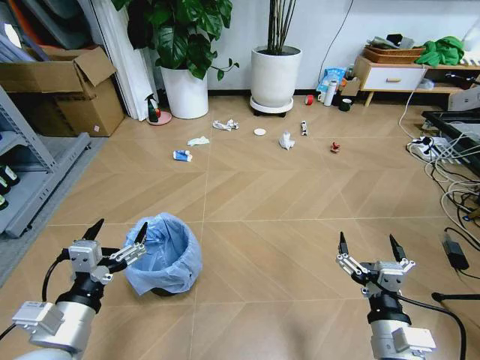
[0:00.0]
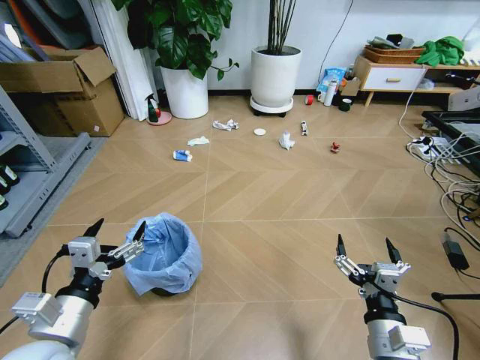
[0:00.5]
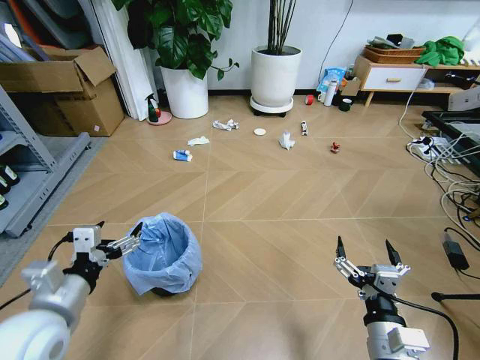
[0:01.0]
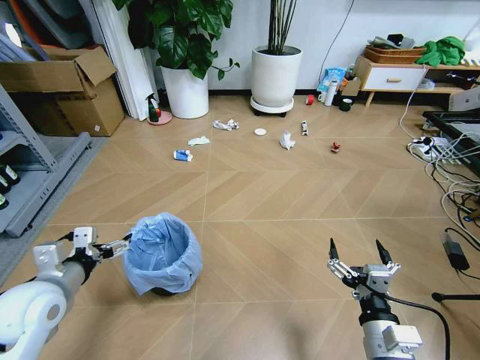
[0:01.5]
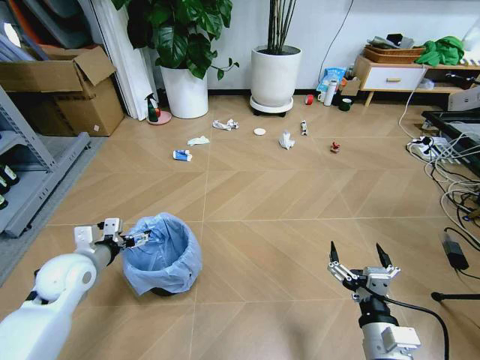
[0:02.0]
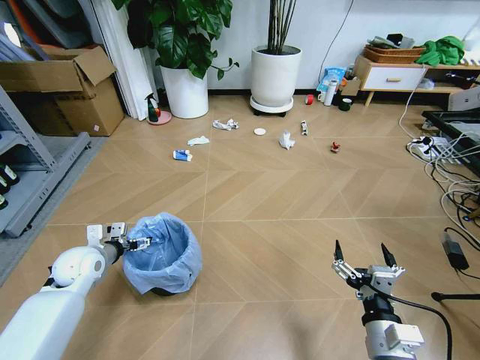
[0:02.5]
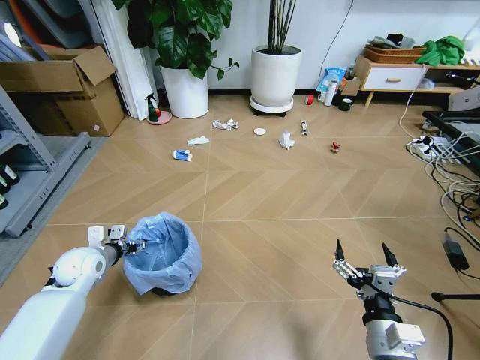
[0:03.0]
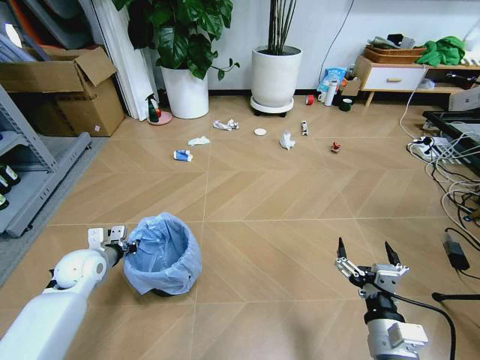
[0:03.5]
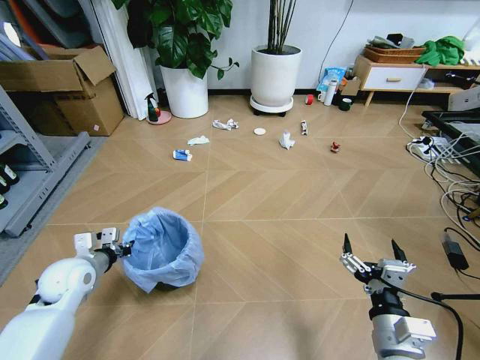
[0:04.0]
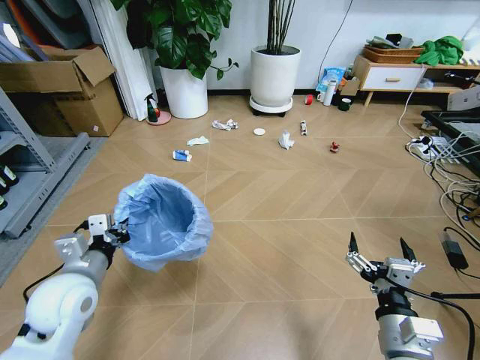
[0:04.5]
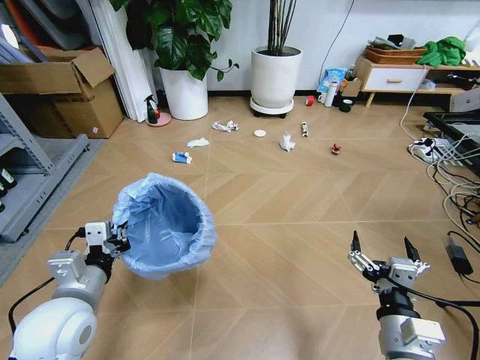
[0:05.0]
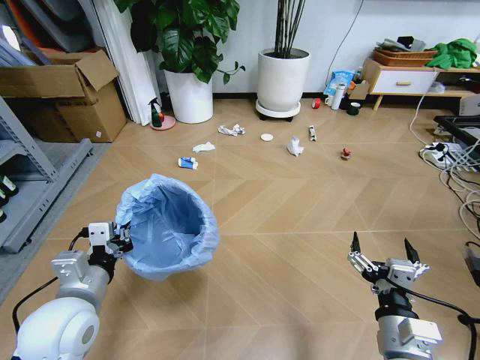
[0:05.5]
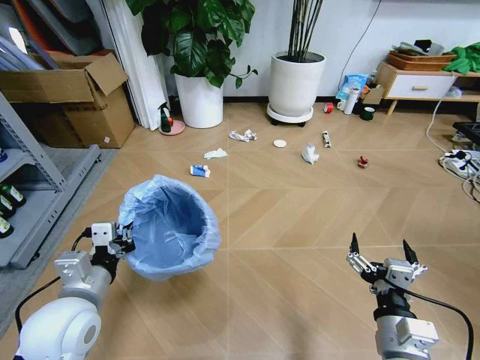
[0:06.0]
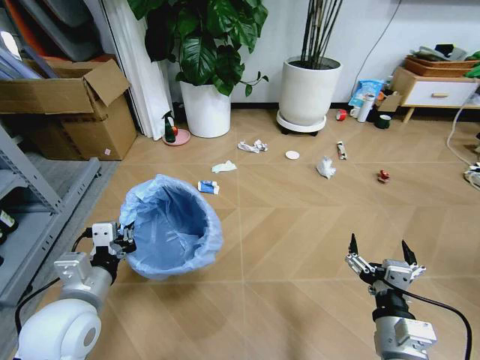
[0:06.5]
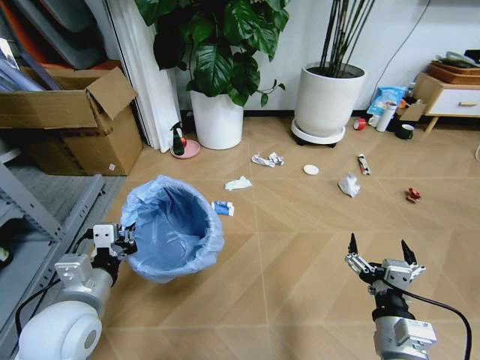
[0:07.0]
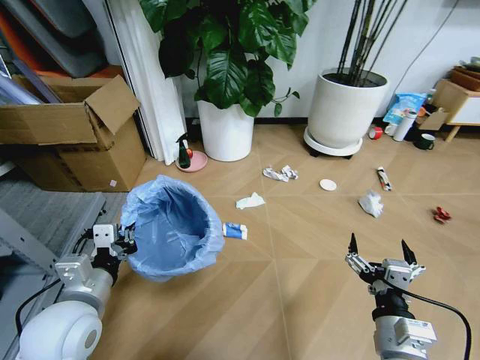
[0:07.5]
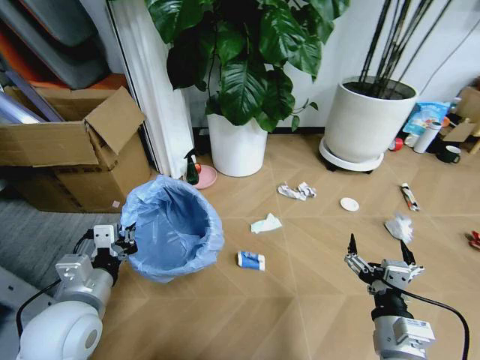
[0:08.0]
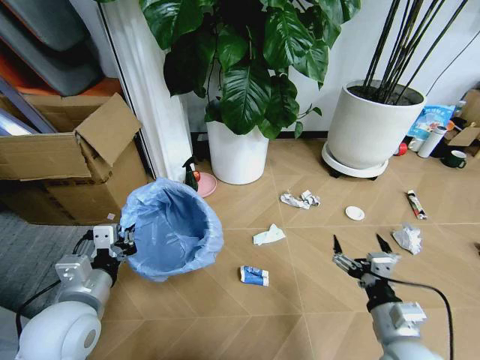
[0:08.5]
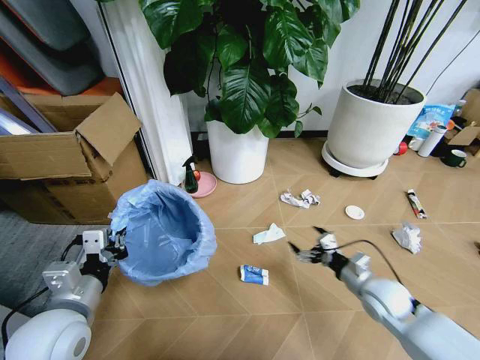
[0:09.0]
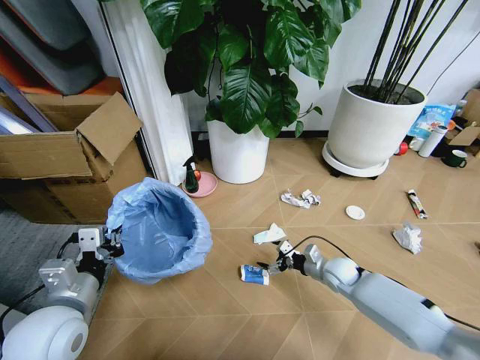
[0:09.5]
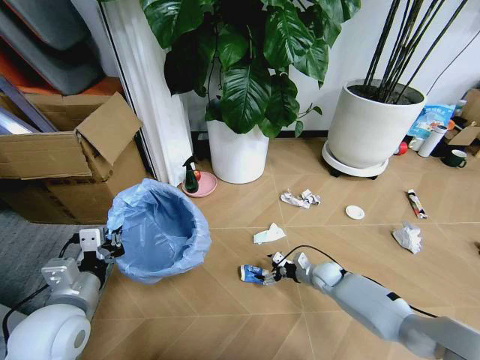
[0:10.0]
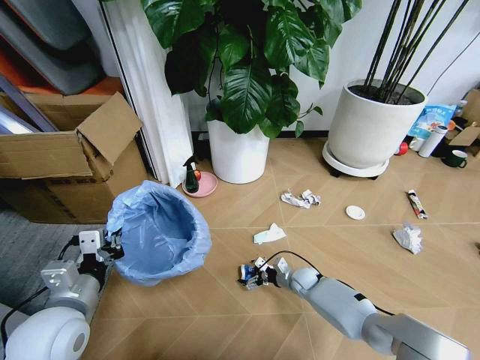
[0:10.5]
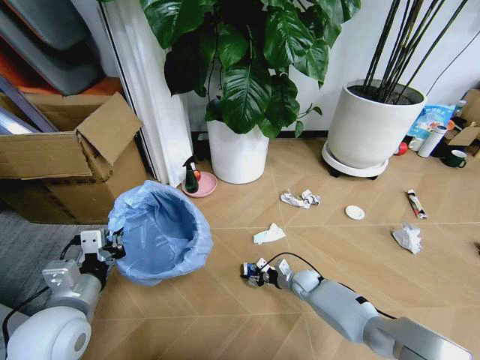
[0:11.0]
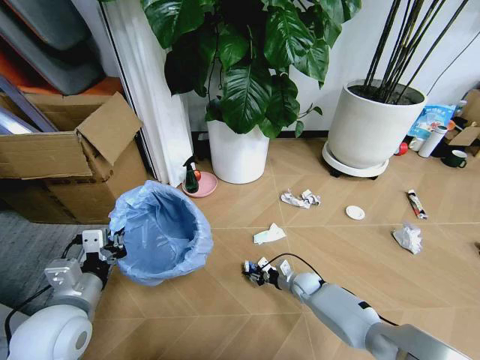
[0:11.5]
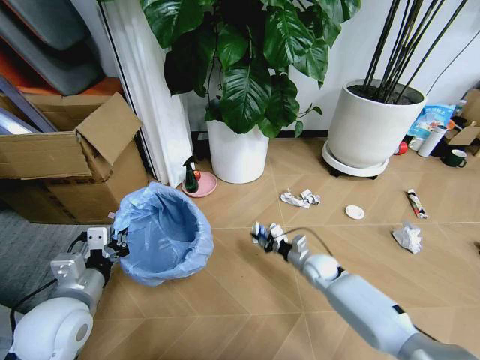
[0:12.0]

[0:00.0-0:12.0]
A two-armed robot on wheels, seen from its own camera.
Task of the whole recording: Pick up the trash bin and place the garbage on the floor into it.
0:02.0 to 0:04.0: The left gripper closes its fingers.
0:04.0 to 0:06.0: The left gripper goes some 20 cm backward, to the right and upward.
0:08.0 to 0:10.0: The right gripper travels forward and downward by approximately 35 cm.
0:10.0 to 0:12.0: The right gripper moves some 5 cm, and closes.

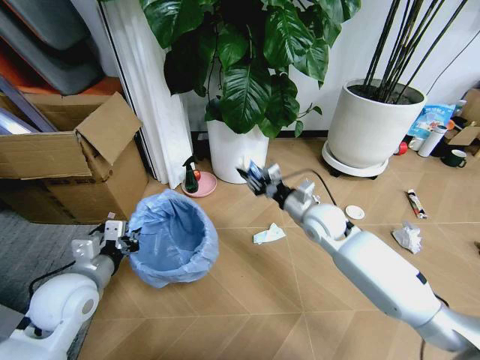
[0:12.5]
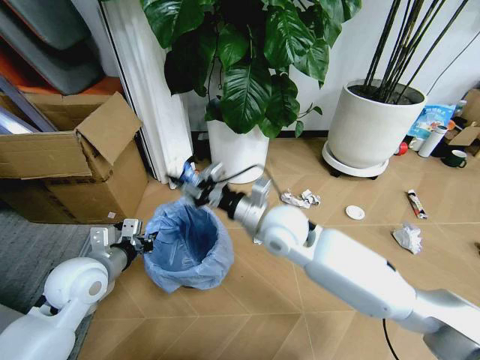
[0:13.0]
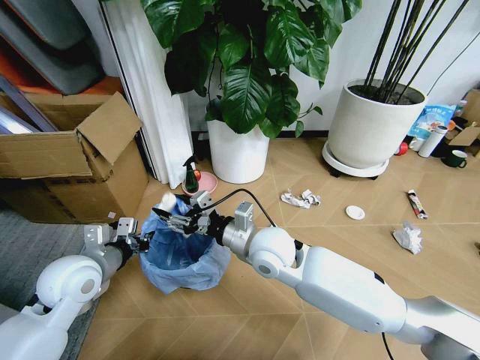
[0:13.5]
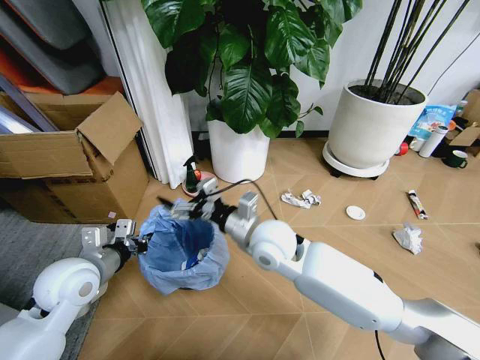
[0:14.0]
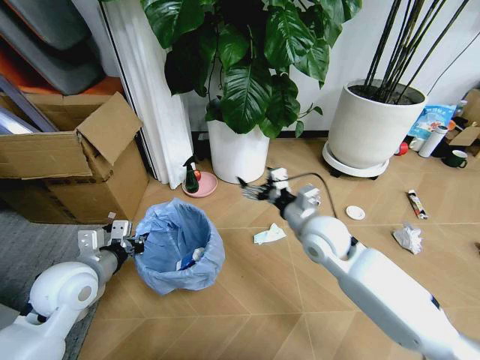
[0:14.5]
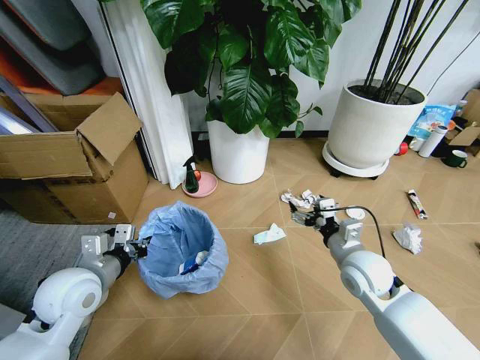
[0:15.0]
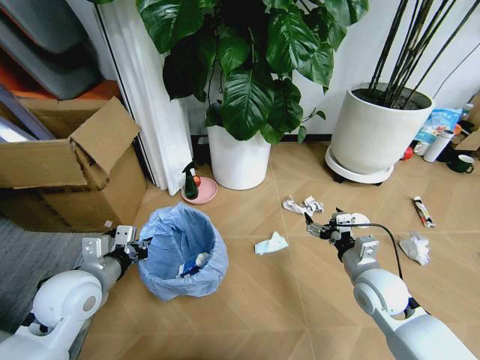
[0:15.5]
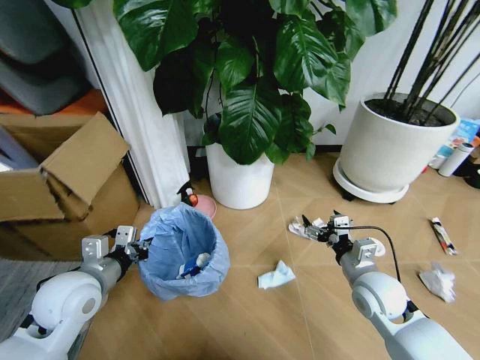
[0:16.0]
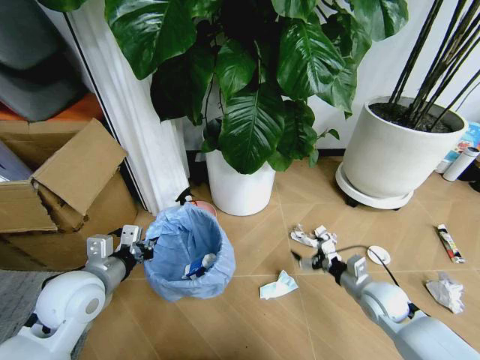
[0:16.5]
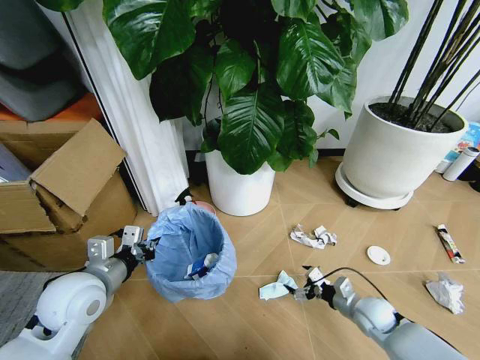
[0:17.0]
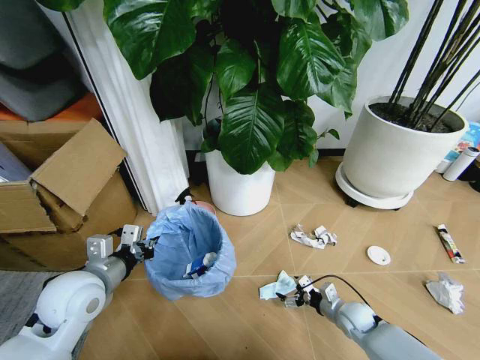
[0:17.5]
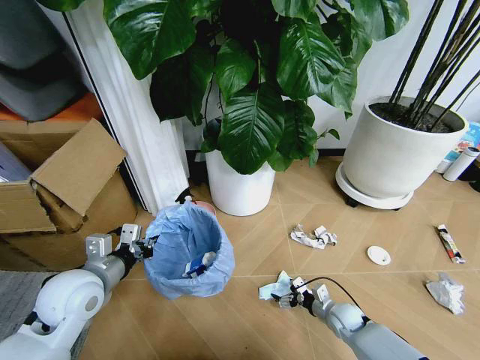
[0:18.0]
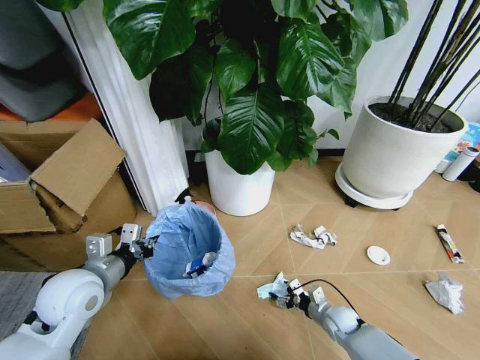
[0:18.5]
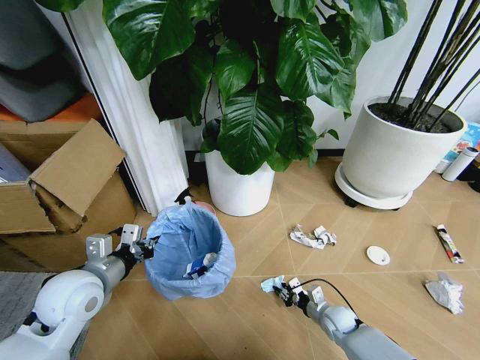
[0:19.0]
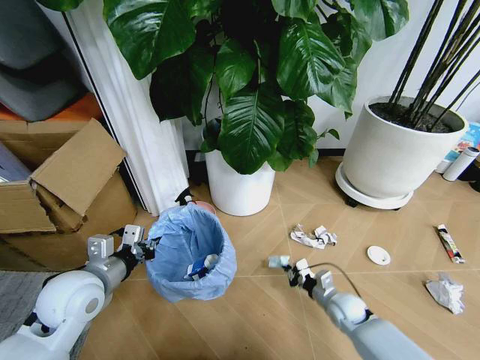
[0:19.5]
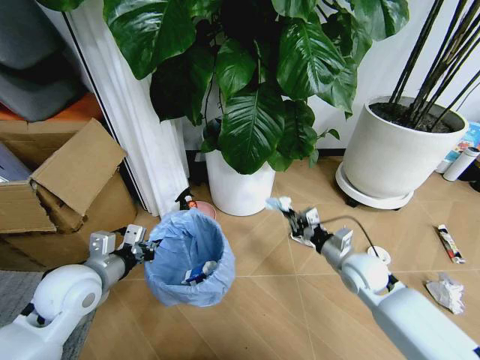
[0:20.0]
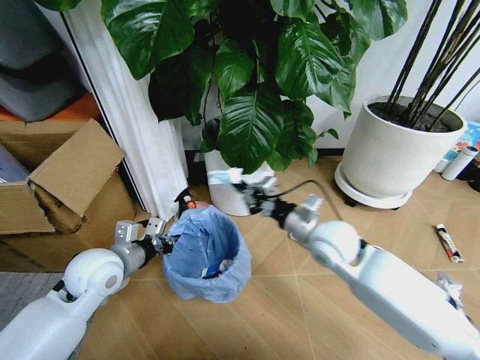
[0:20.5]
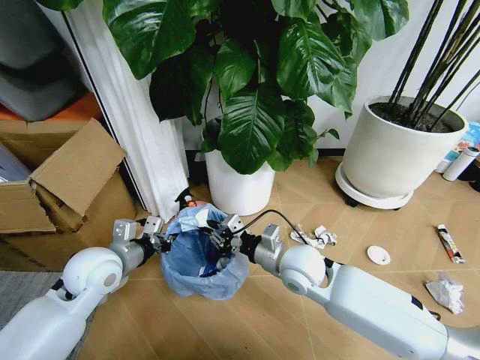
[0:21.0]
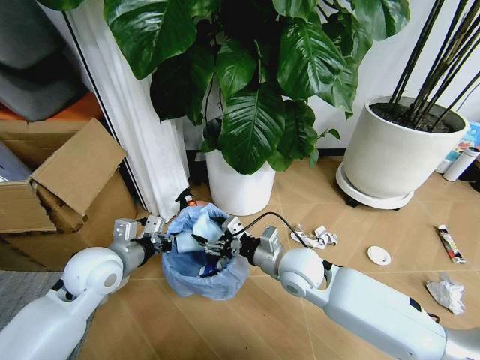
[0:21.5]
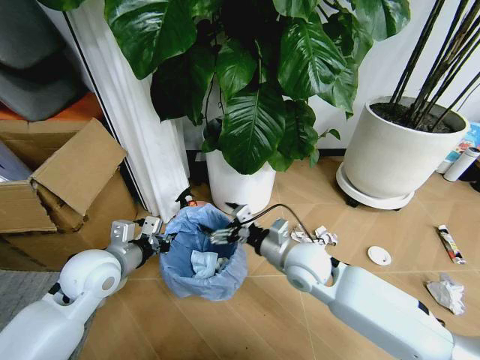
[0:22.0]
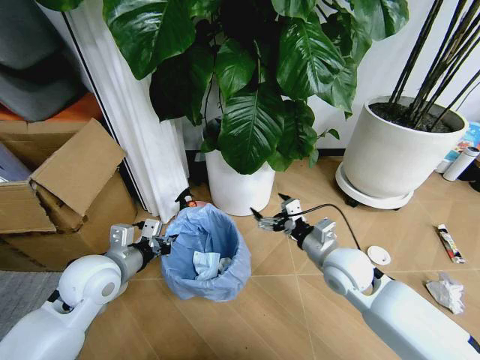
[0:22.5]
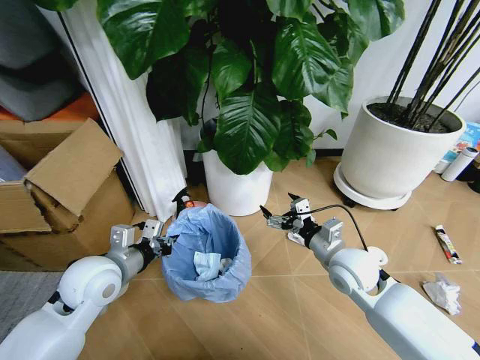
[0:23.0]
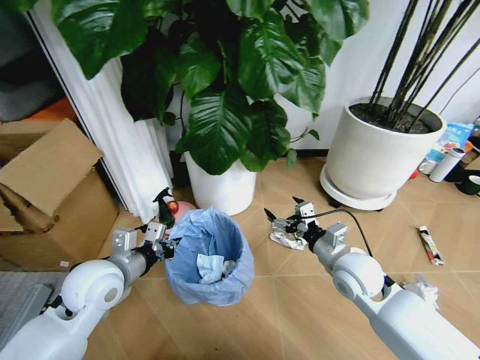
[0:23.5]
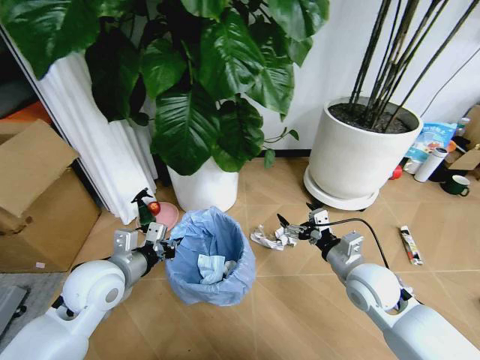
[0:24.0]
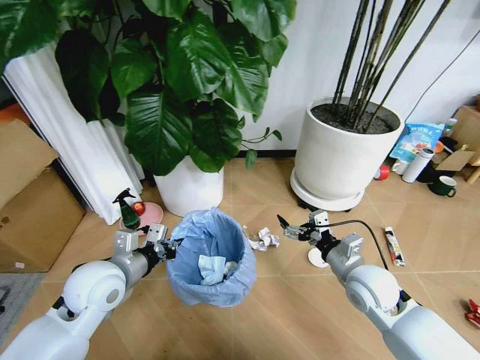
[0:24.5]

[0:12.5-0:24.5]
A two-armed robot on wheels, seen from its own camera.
Task of the whole recording: Pick up the trash bin and place the garbage on the floor into it.
0:12.5 to 0:14.5: The right gripper moves backward, some 5 cm, goes to the left and returns, about 15 cm each way, and opens.
0:14.5 to 0:16.5: The right gripper travels to the right, downward and backward by roughly 25 cm.
0:16.5 to 0:18.5: The right gripper is displaced downward by about 15 cm.
0:18.5 to 0:20.5: The right gripper shifts about 35 cm upward, and closes up.
0:20.5 to 0:22.5: The right gripper moves approximately 5 cm, and opens.
0:22.5 to 0:24.5: The right gripper ends up about 5 cm from where it was.

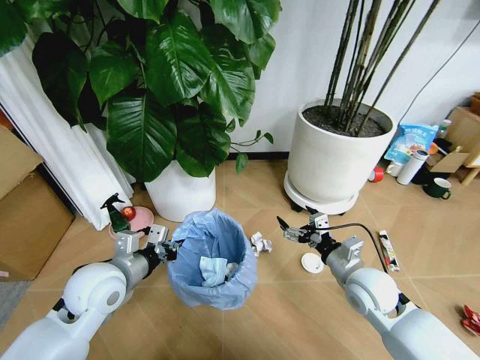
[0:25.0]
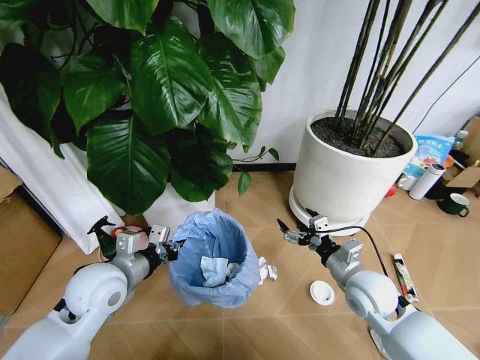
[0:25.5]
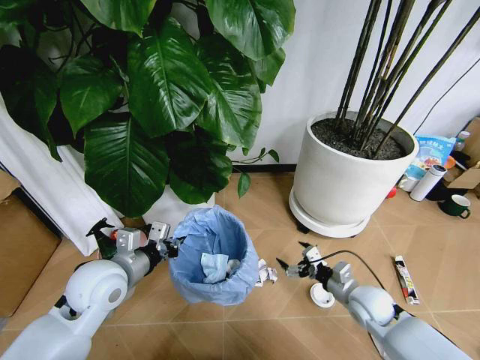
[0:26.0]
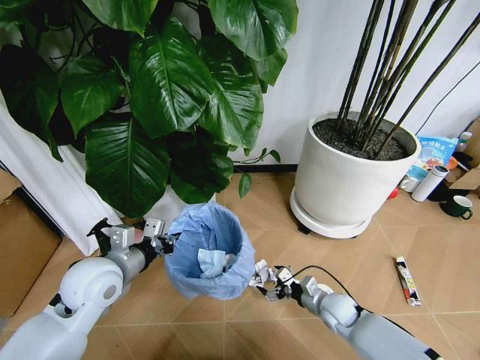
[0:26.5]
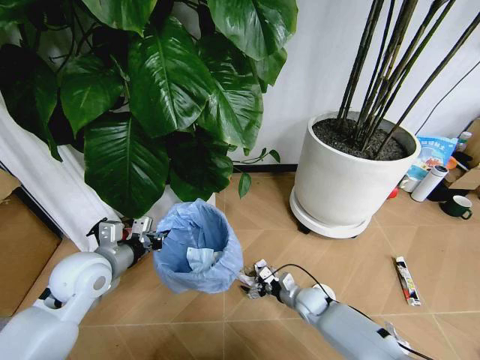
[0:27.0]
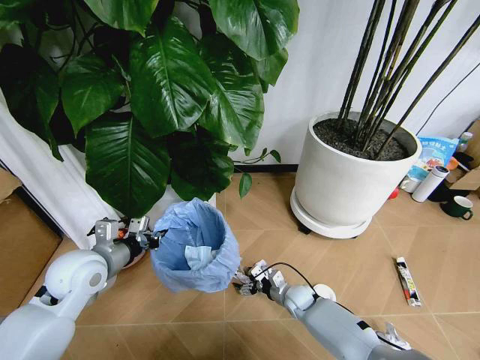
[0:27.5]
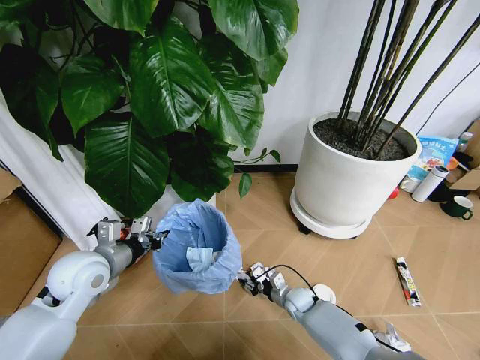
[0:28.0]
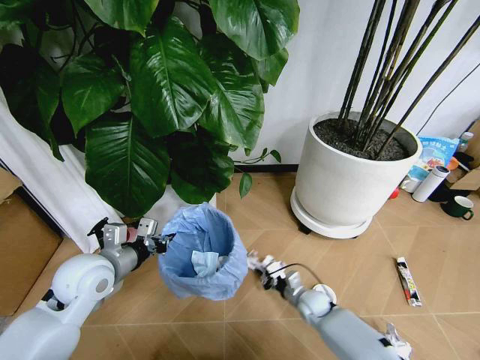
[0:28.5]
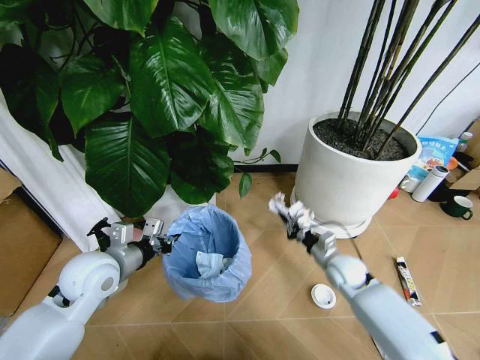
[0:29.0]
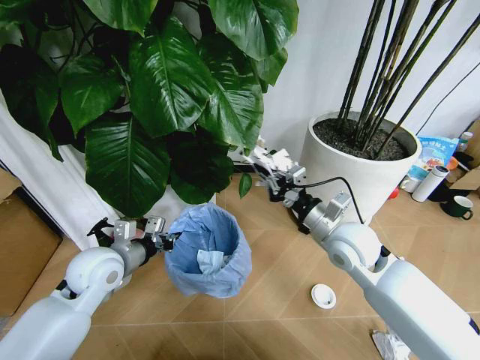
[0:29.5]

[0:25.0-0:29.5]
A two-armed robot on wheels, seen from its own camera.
Task of the whole recording: Pick up the trash bin and place the garbage on the floor into it.
0:25.0 to 0:27.0: The right gripper shifts about 25 cm downward.
0:27.0 to 0:29.5: The right gripper heads upward, covering roughly 35 cm, and closes.
